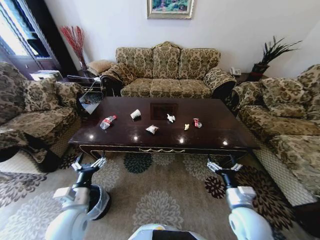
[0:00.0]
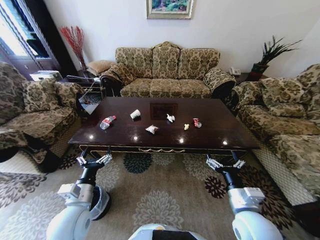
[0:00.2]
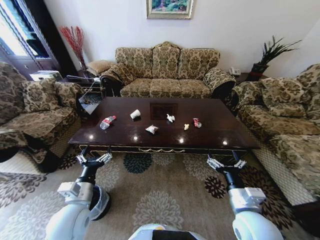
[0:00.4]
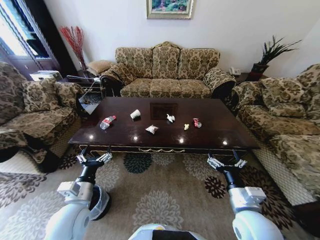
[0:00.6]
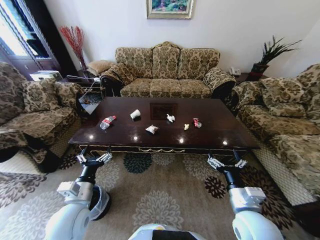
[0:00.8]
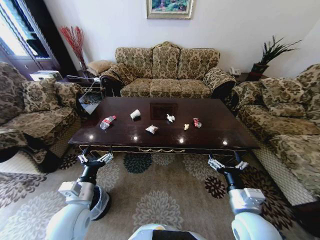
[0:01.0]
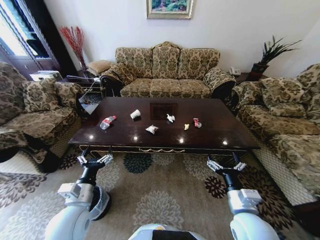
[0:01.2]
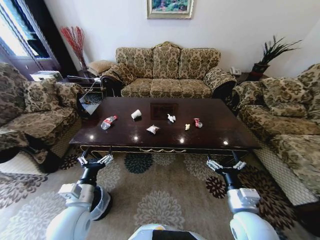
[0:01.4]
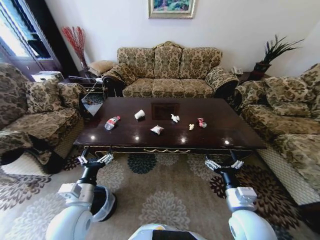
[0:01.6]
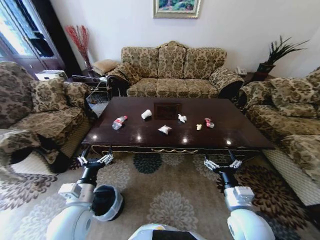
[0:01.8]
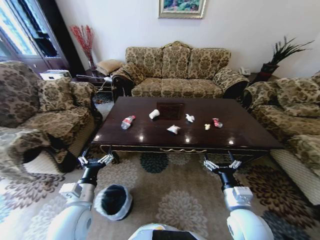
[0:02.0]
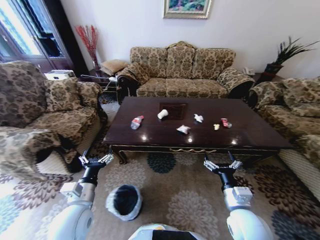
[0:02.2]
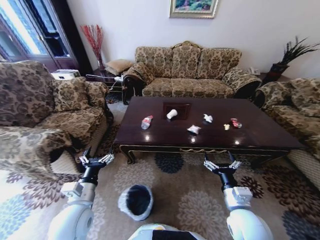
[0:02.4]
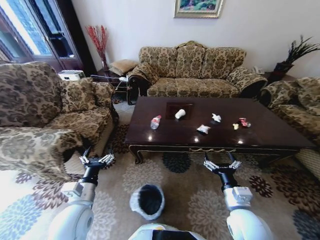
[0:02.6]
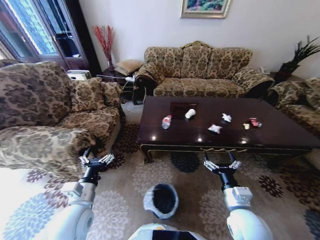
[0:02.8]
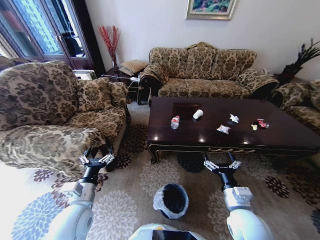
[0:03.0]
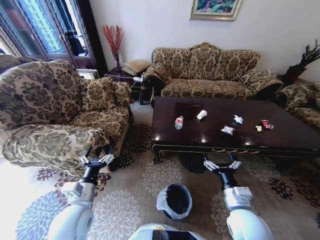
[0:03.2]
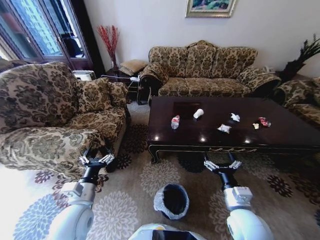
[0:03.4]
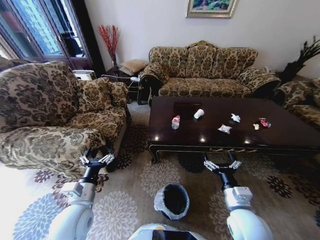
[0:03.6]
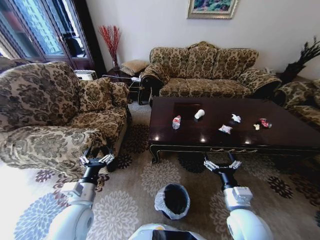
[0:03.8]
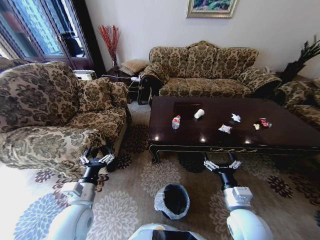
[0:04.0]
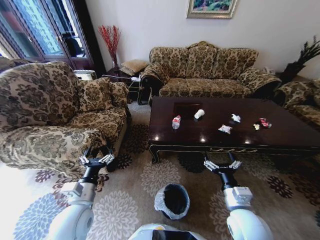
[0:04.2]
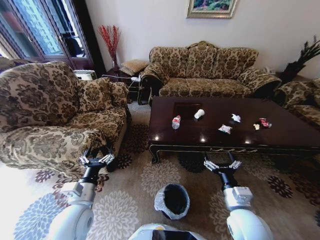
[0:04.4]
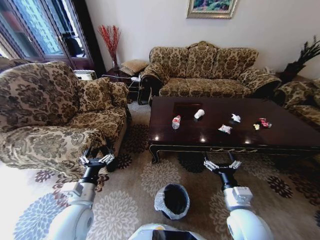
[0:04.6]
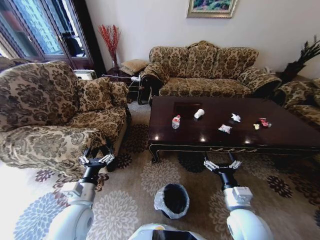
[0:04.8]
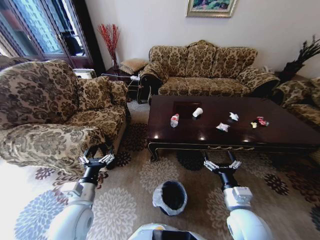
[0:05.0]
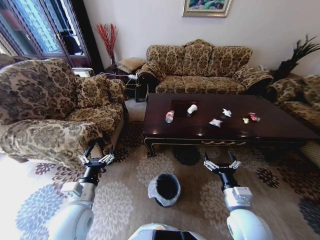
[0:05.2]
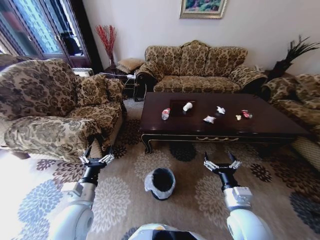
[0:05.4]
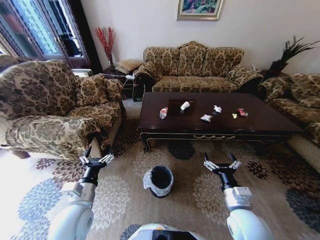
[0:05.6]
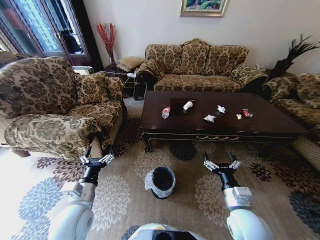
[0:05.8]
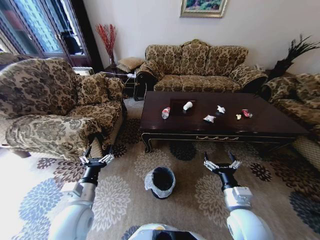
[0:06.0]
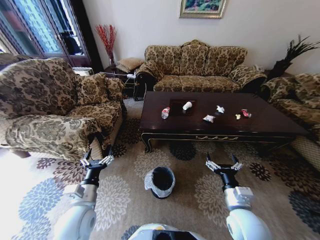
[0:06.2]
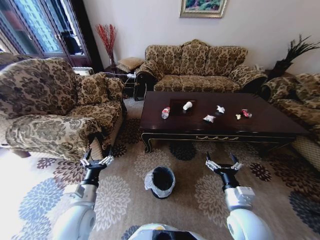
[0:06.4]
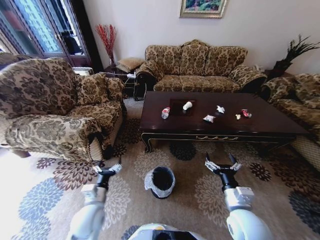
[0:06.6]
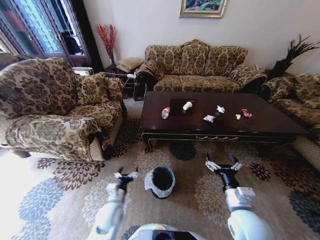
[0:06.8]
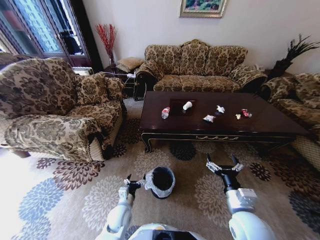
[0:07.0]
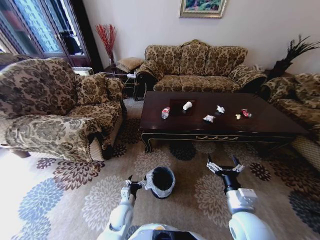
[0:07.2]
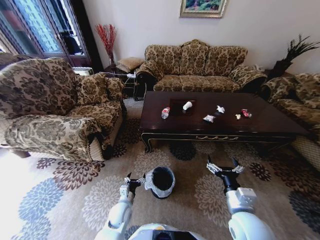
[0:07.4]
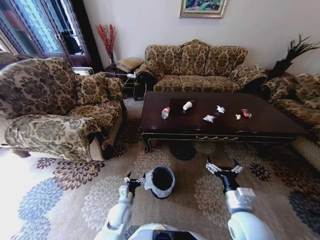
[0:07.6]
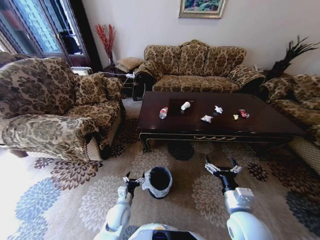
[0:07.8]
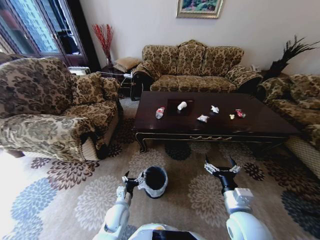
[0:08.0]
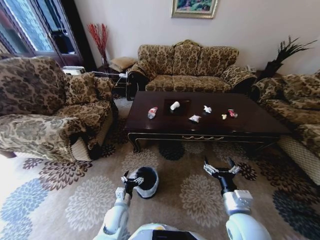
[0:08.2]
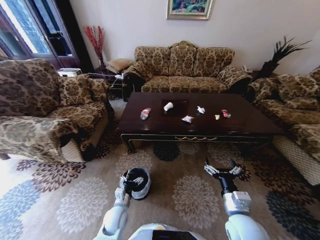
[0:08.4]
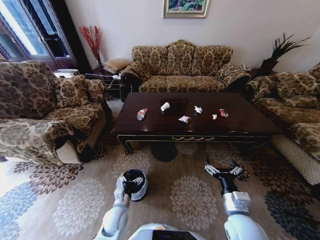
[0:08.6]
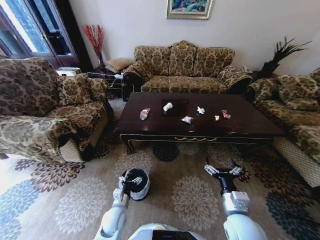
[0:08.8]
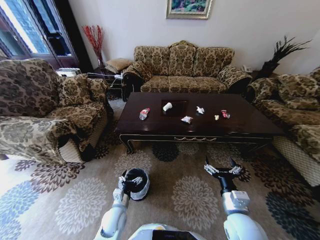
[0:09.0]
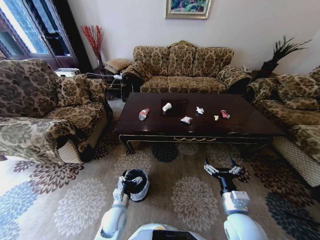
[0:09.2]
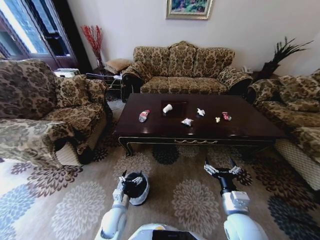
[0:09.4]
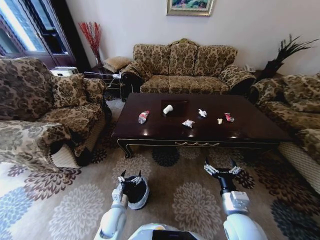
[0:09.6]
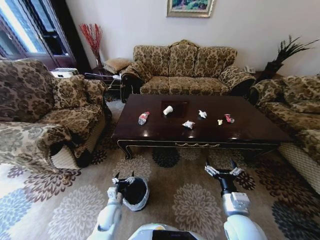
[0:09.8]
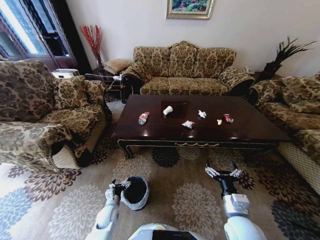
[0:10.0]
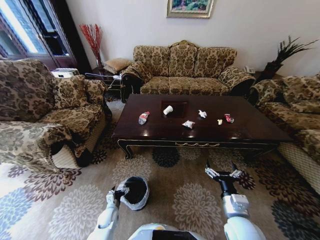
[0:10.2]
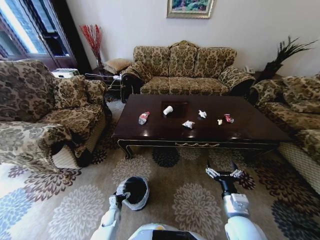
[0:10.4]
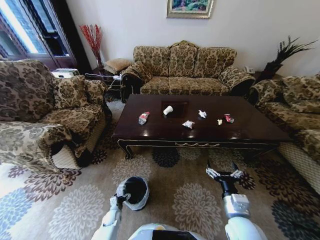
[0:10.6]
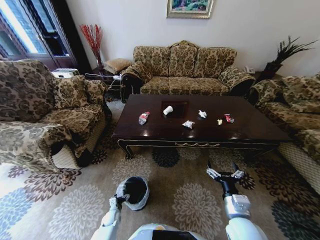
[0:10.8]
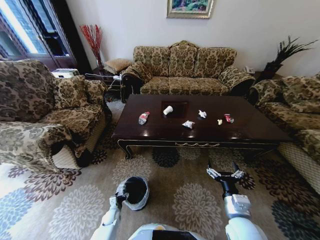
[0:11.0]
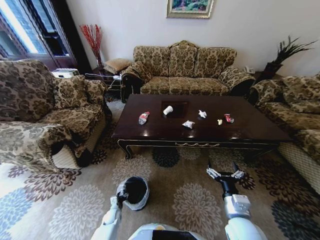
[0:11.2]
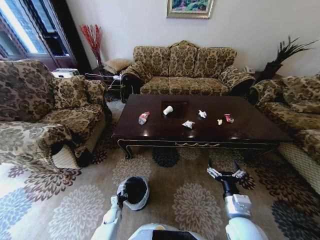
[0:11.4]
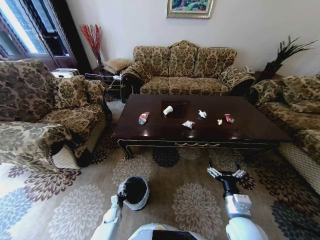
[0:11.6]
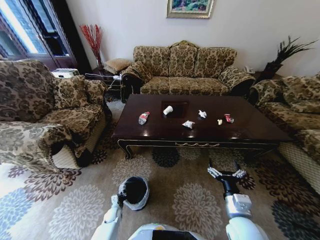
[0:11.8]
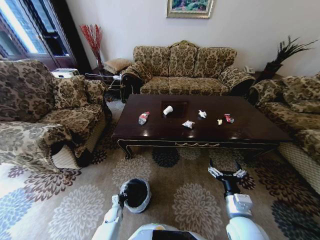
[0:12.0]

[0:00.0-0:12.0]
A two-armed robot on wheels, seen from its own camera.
Task of the whole recording: Move to the front of the table and place the trash on the table into the trash bin.
0:03.0 to 0:04.4: The two grippers keep their place.
0:06.0 to 0:07.6: The left gripper travels downward by roughly 20 cm.
0:09.0 to 0:10.4: The left gripper moves downward and to the left, about 20 cm.
0:10.4 to 0:12.0: The left gripper closes up.

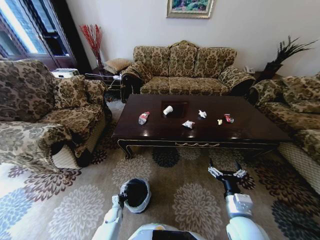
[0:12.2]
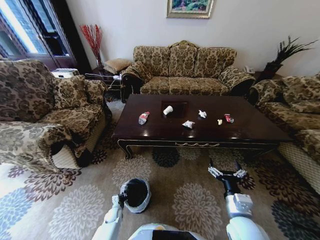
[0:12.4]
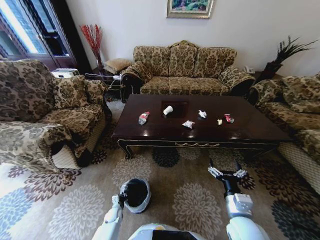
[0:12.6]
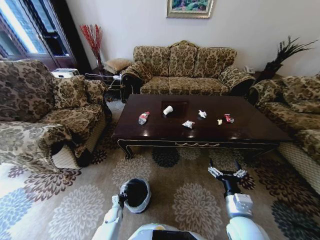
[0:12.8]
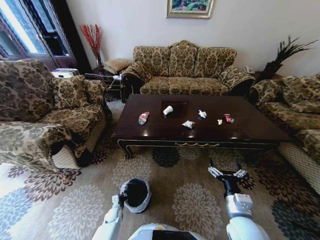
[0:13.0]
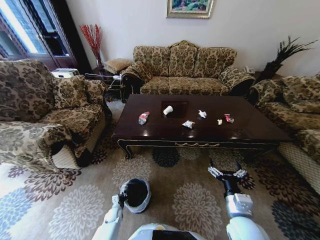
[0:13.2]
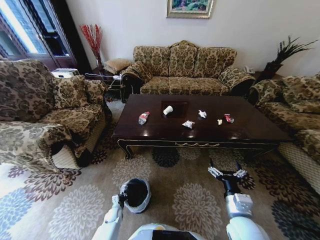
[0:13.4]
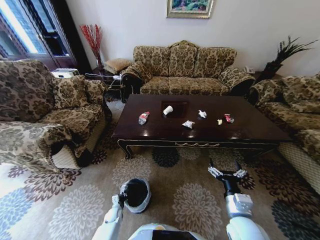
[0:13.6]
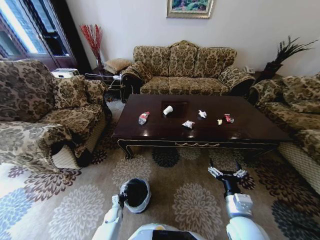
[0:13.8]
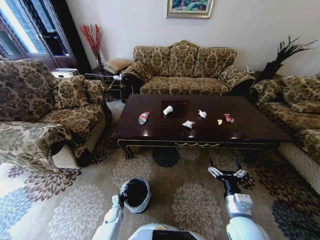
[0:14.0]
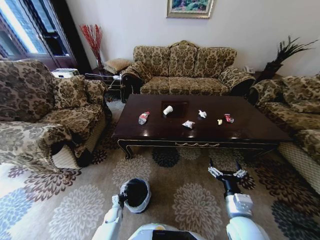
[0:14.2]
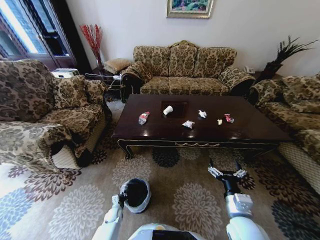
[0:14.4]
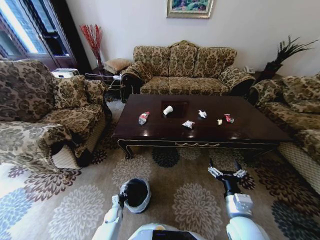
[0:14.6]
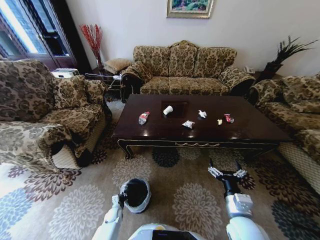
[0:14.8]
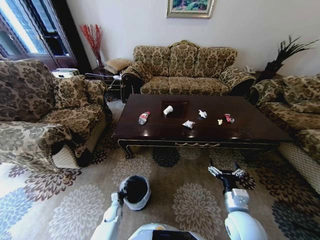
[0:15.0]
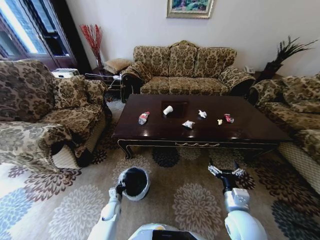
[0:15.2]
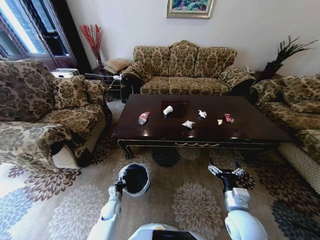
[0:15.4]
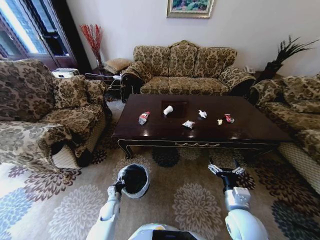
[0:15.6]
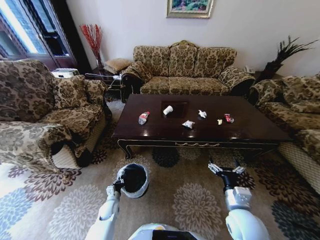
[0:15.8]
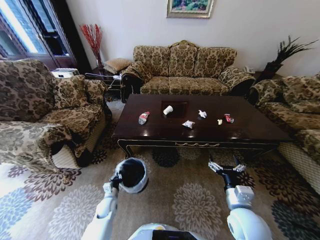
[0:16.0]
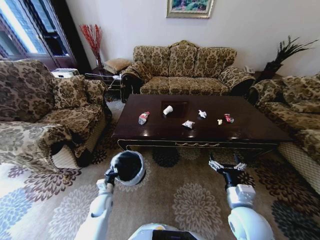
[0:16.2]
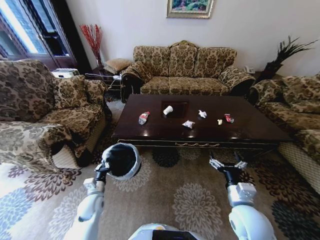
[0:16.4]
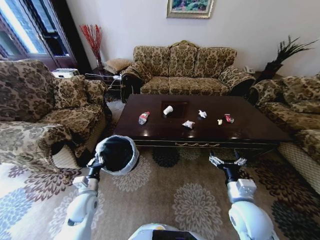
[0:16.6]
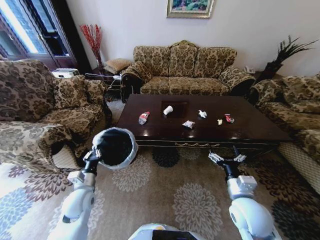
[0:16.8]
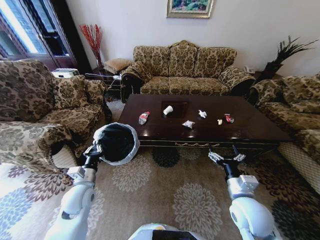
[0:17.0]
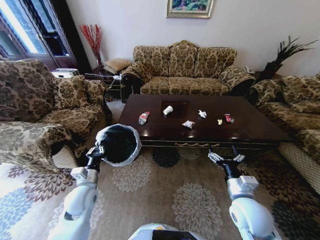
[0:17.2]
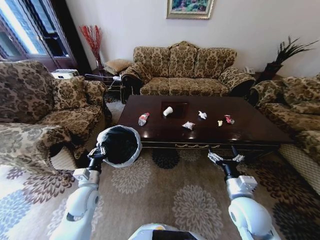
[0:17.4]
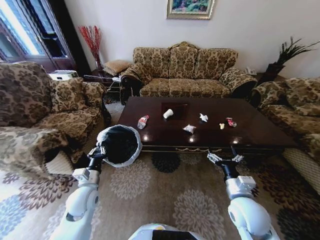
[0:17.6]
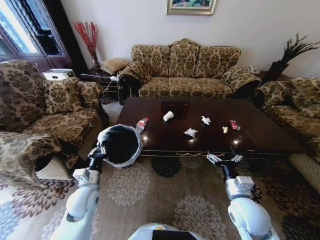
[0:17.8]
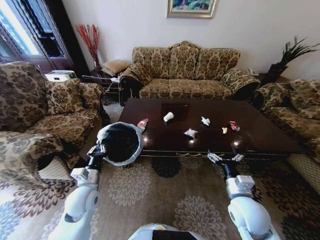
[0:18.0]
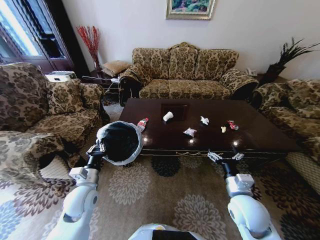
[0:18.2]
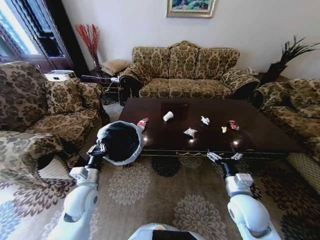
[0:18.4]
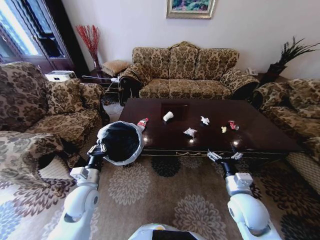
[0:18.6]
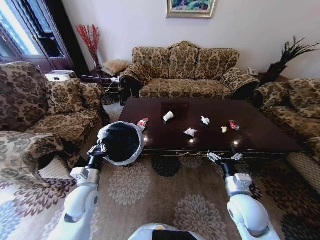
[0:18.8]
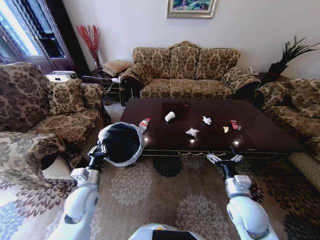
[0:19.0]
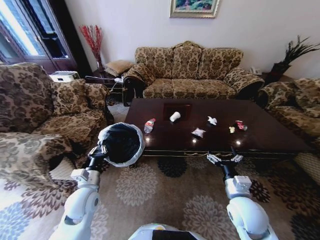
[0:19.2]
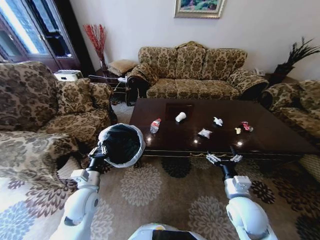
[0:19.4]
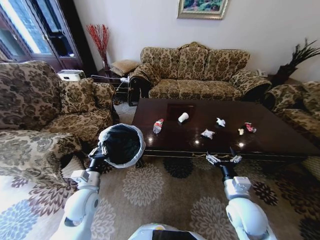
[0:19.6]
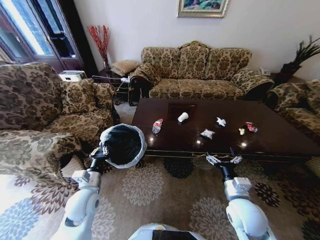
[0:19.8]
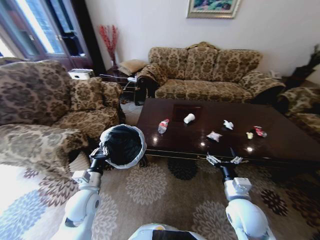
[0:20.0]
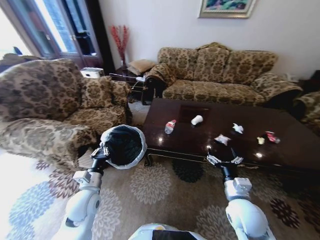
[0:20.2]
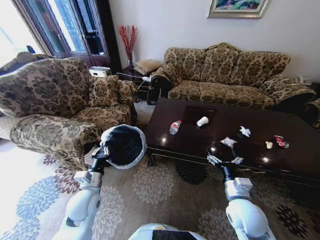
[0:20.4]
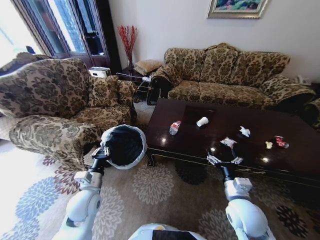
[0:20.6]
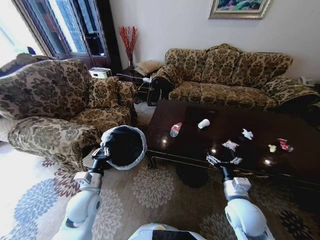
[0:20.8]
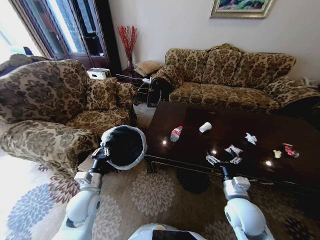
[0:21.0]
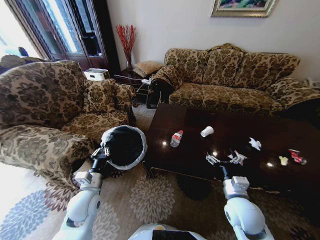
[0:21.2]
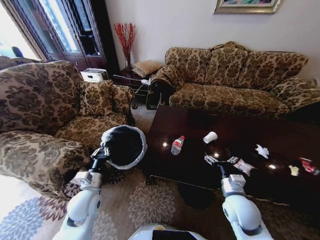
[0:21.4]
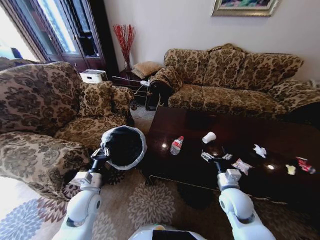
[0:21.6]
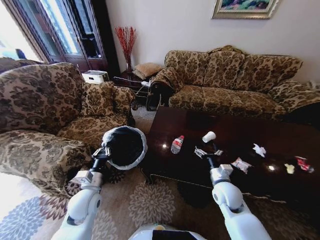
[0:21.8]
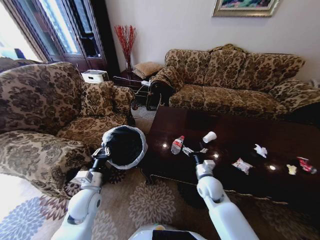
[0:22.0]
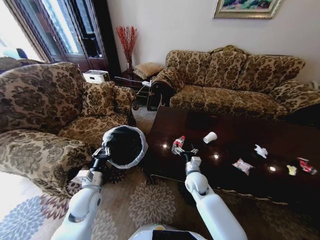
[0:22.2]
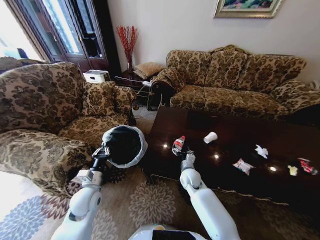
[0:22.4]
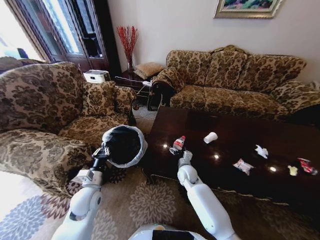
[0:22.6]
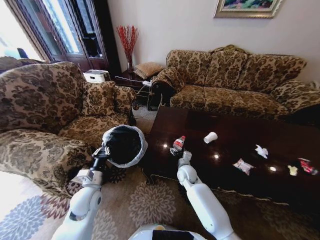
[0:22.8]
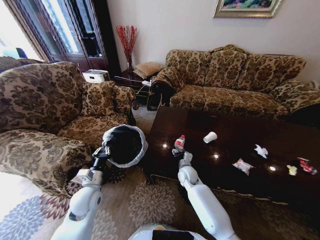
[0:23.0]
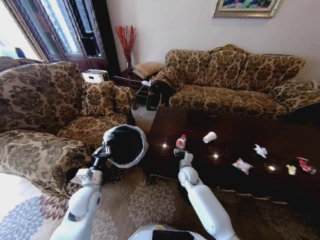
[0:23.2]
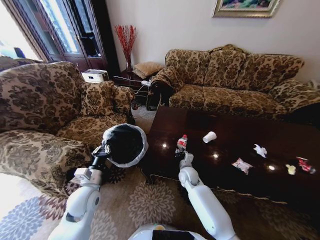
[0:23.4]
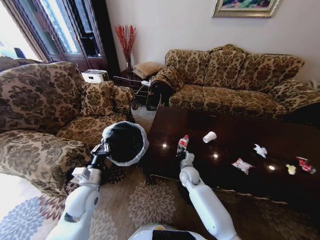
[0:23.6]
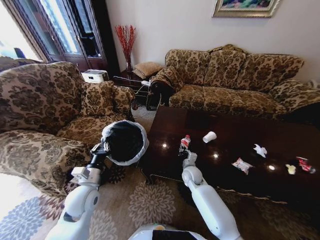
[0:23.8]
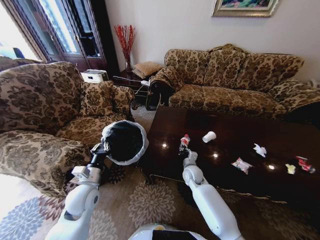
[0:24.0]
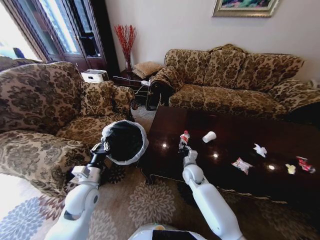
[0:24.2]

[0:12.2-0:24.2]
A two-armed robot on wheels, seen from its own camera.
Task of the whole recording: Move to the front of the table and place the trash on the table into the trash bin.
0:12.2 to 0:13.8: Both grippers stay put.
0:13.8 to 0:15.2: The left gripper goes about 5 cm upward.
0:15.2 to 0:16.6: The left gripper travels upward by some 20 cm.
0:16.6 to 0:18.2: The left gripper shifts approximately 10 cm upward.
0:21.2 to 0:22.6: The right gripper is displaced forward, to the left and downward by approximately 25 cm.
0:22.6 to 0:24.2: The right gripper closes its fingers.
